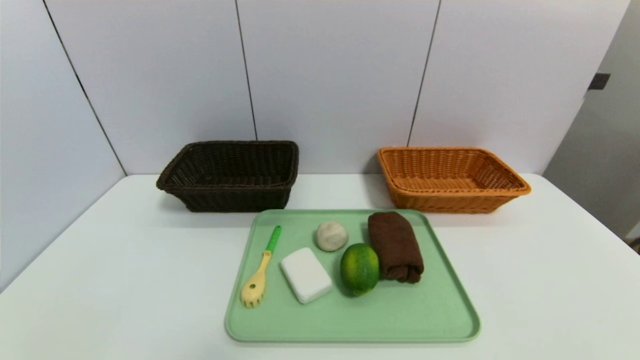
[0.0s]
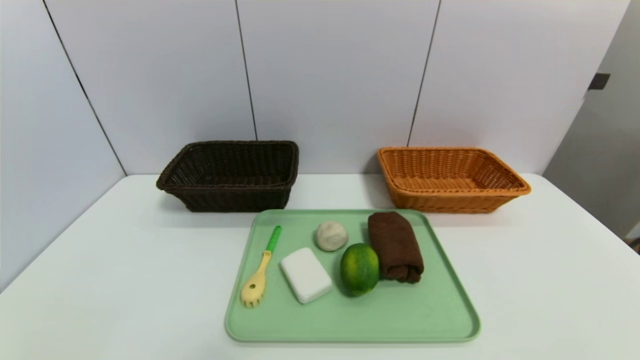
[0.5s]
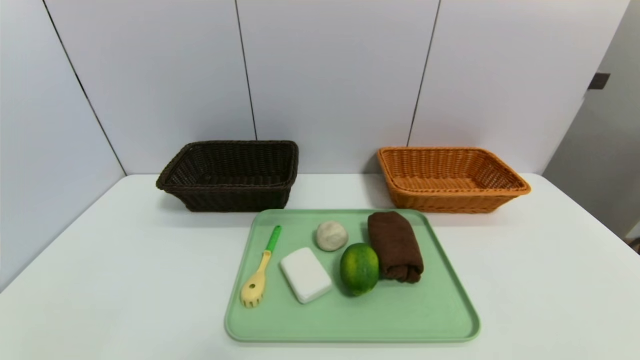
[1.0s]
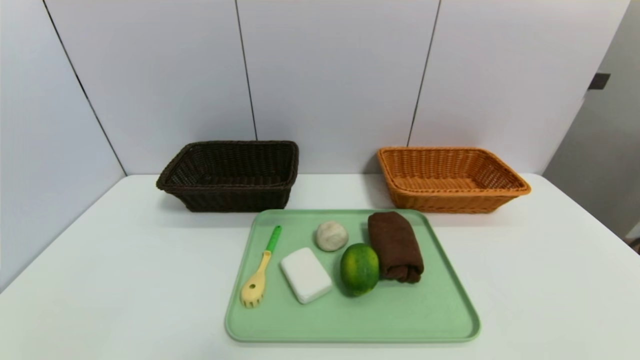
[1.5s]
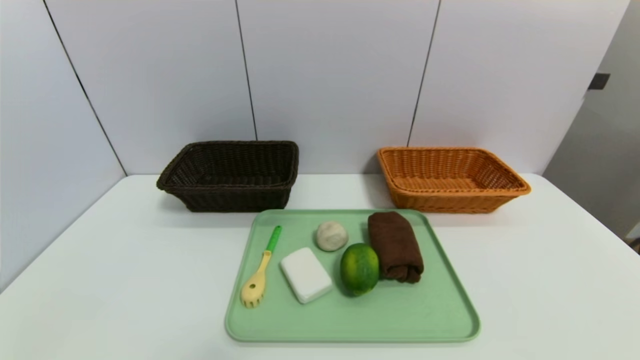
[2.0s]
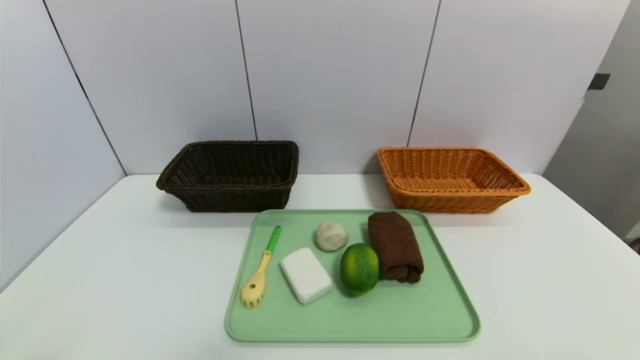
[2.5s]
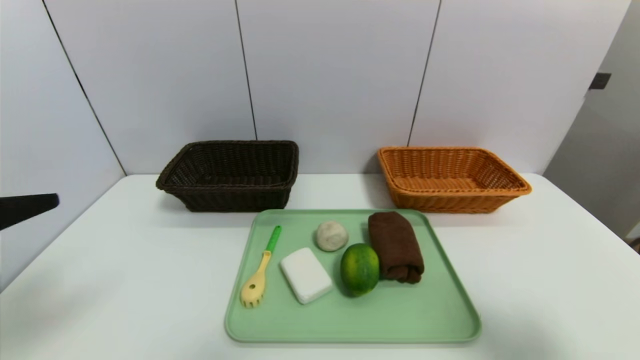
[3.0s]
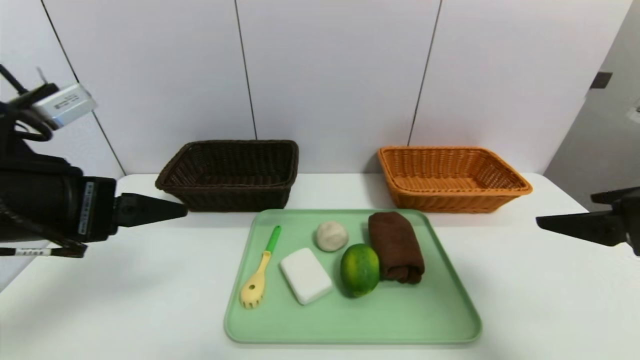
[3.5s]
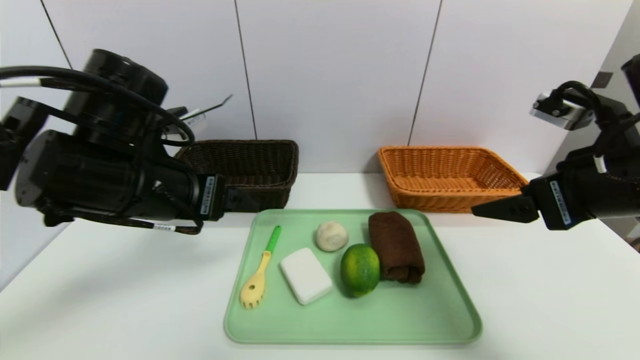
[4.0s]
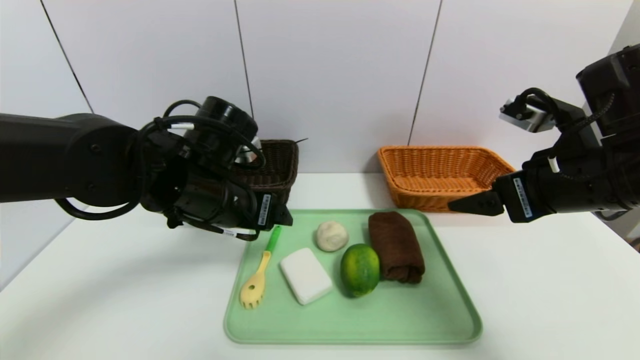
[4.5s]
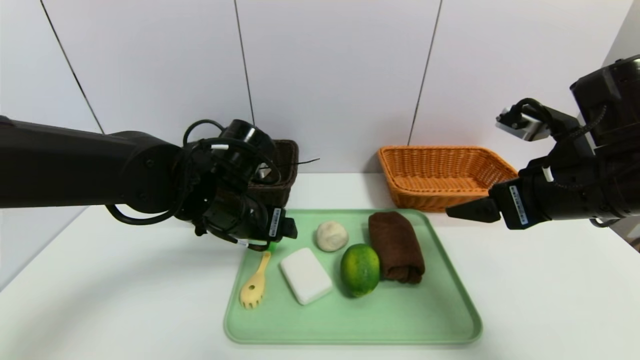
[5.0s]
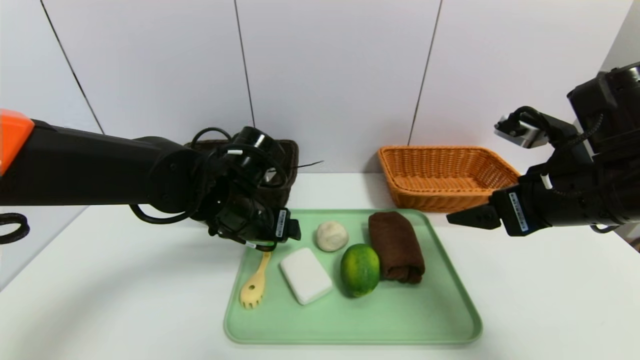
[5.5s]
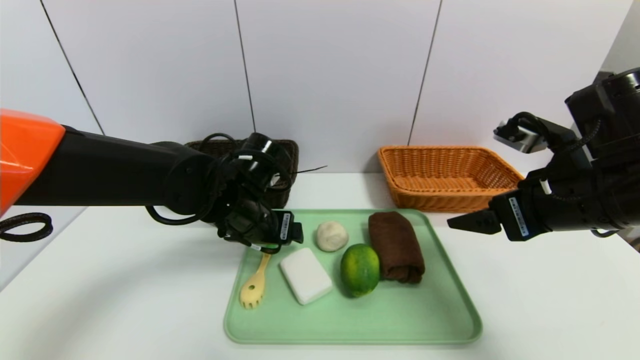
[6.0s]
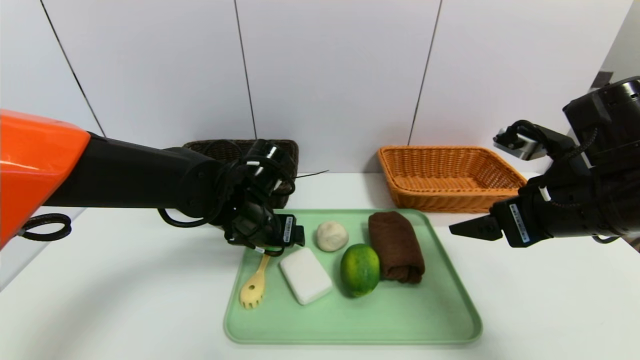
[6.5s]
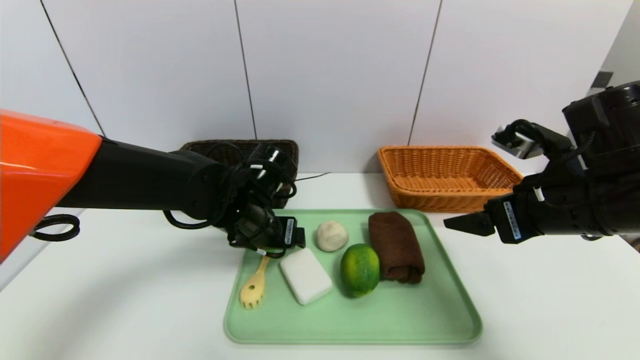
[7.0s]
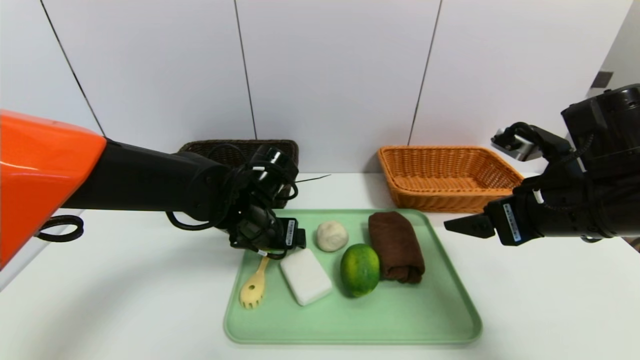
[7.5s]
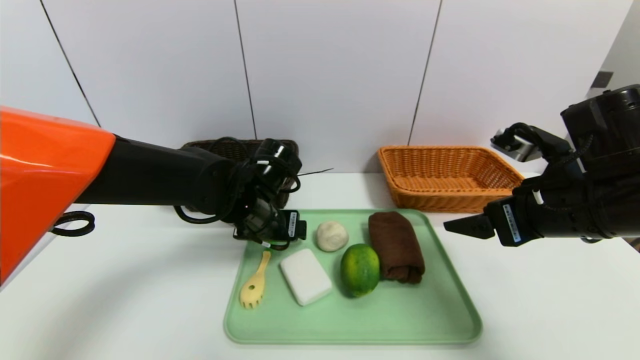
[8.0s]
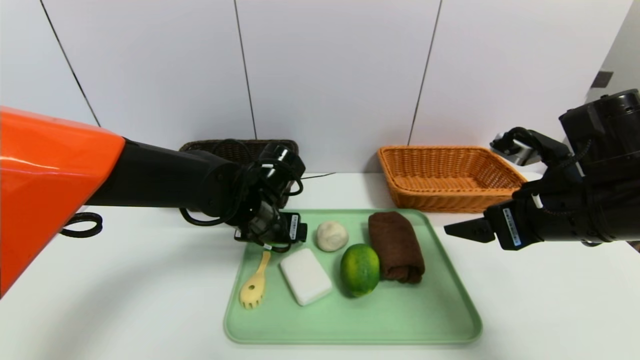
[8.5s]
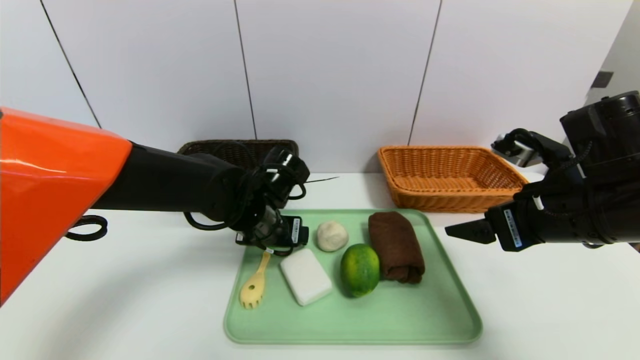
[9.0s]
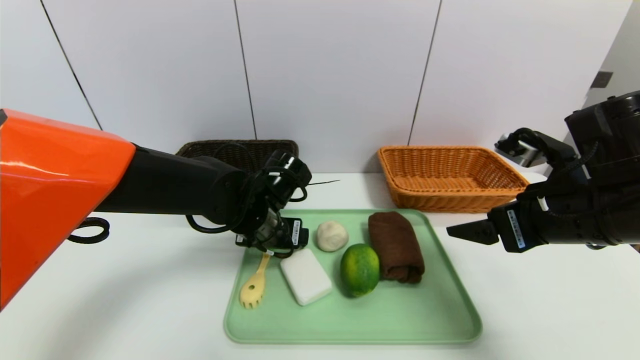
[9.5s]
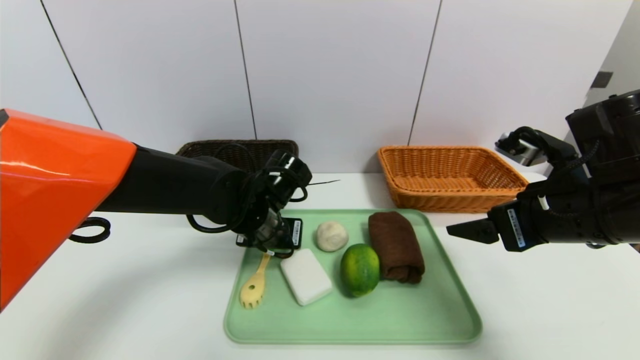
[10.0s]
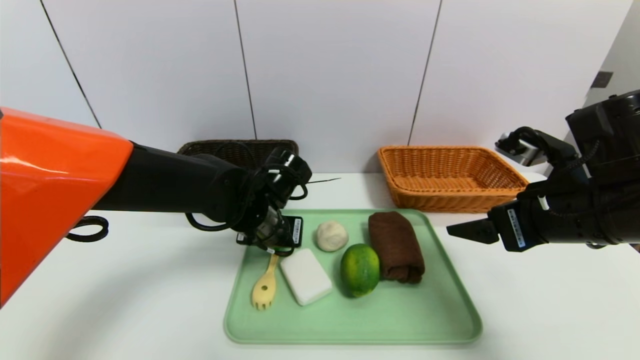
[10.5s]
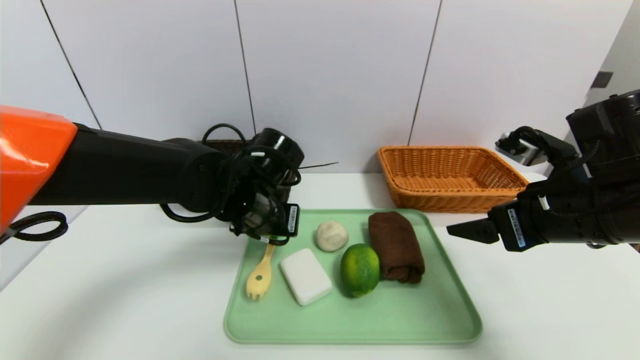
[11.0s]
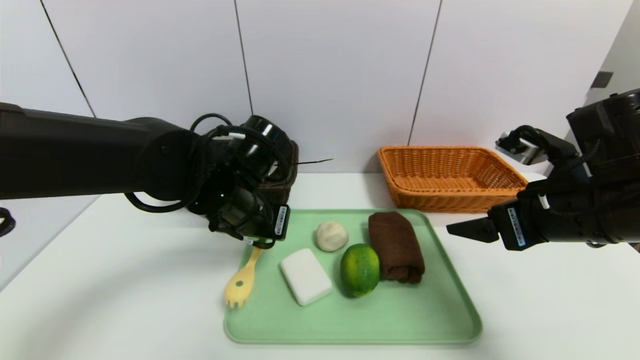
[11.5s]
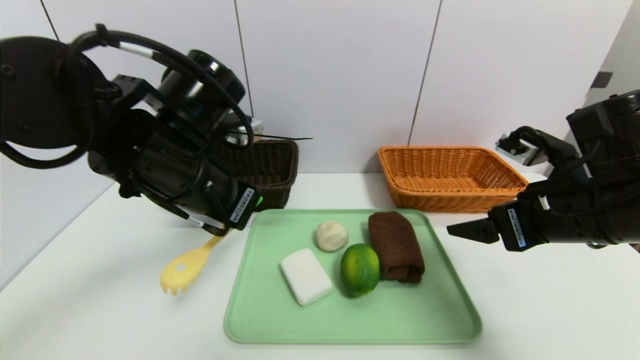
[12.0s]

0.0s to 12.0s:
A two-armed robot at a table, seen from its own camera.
Task of the whole recording: place the food in the right basket with the right gripper, and place the non food items in the left basket with the left gripper.
2.0s to 4.0s: The left gripper travels forward and to the right by approximately 30 cm. The right gripper shifts some 30 cm forward and upward.
4.0s to 6.0s: The left gripper heads downward, to the right and forward, covering approximately 15 cm.
6.0s to 8.0s: The grippers stay close to where they were, moving slightly.
8.0s to 10.0s: The left gripper closes up.
10.0s to 12.0s: The left gripper travels upward, backward and to the left by some 15 cm, and closes its fingers.

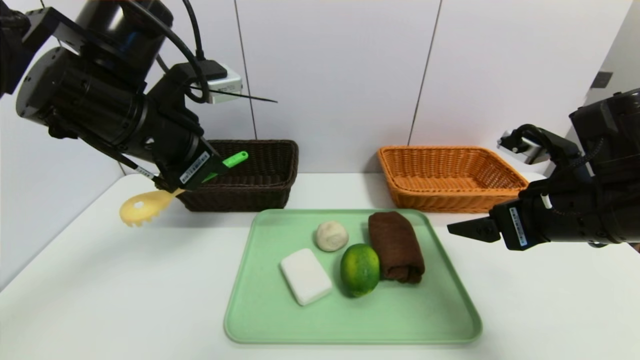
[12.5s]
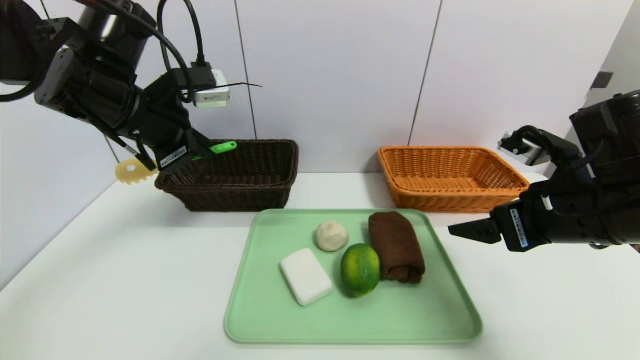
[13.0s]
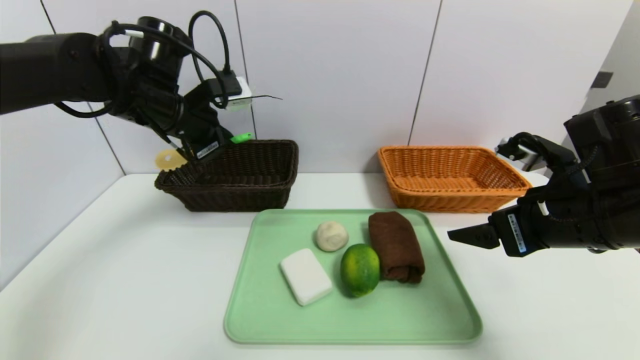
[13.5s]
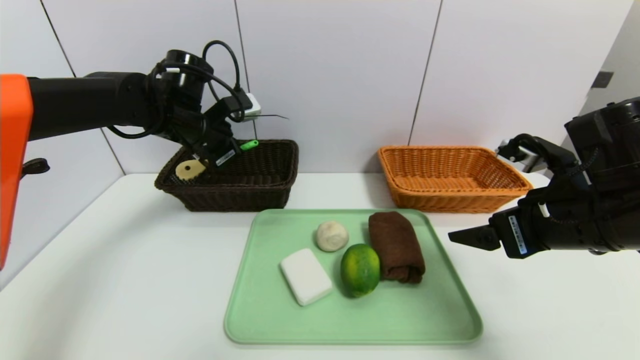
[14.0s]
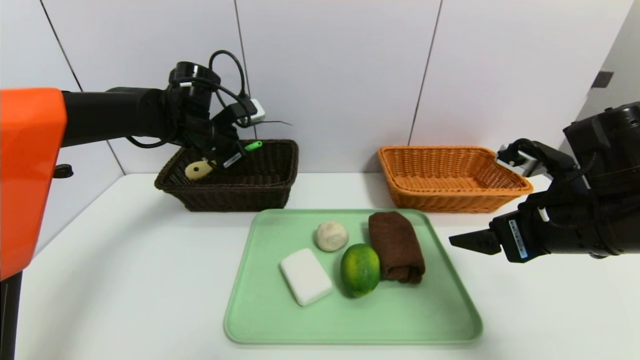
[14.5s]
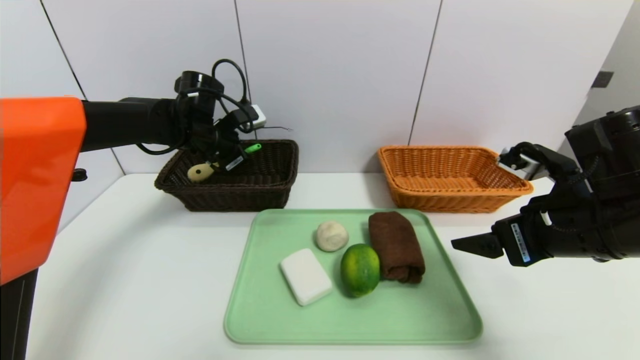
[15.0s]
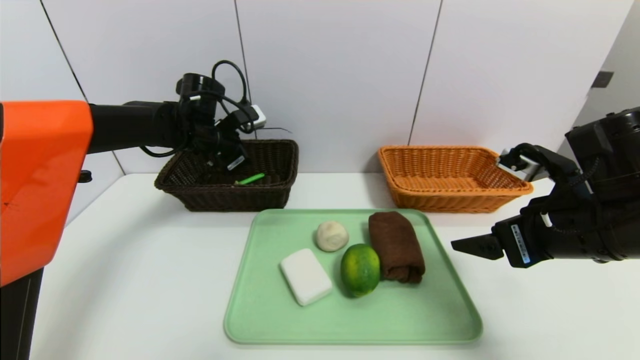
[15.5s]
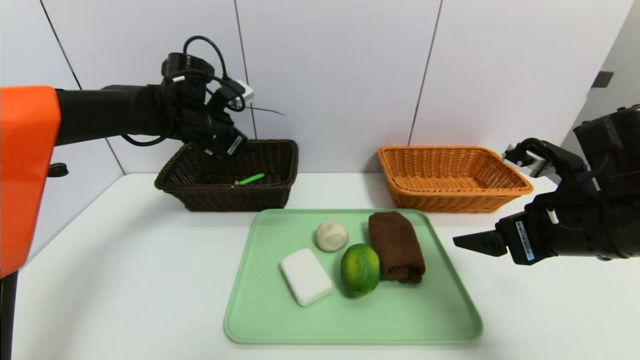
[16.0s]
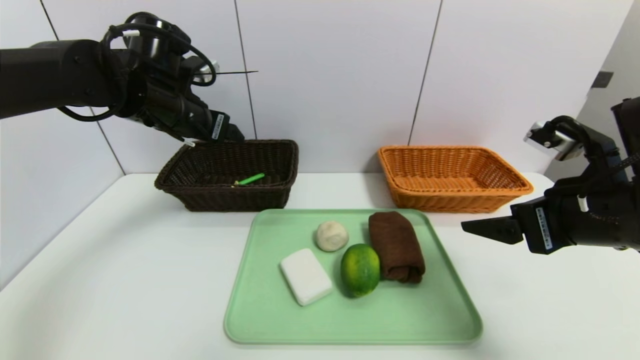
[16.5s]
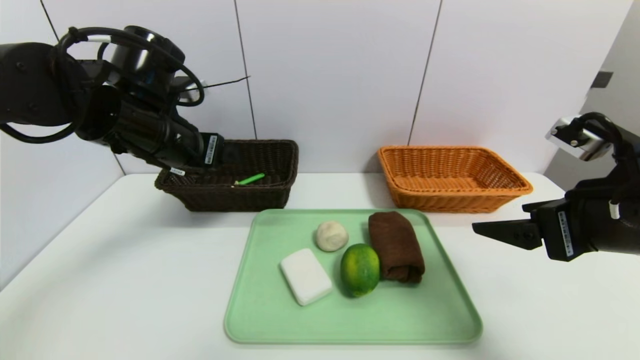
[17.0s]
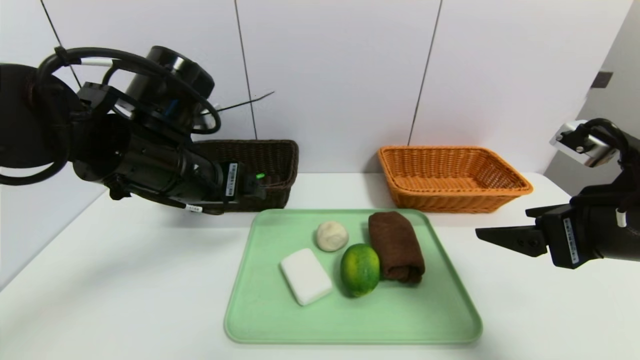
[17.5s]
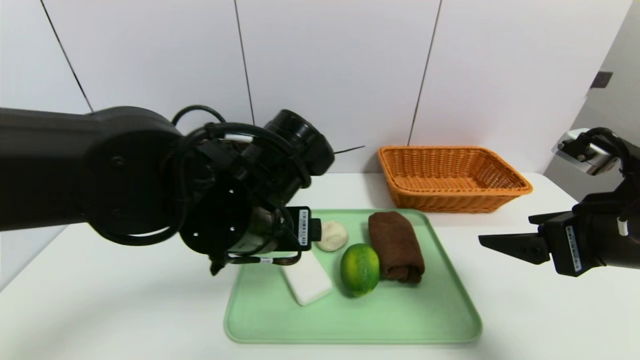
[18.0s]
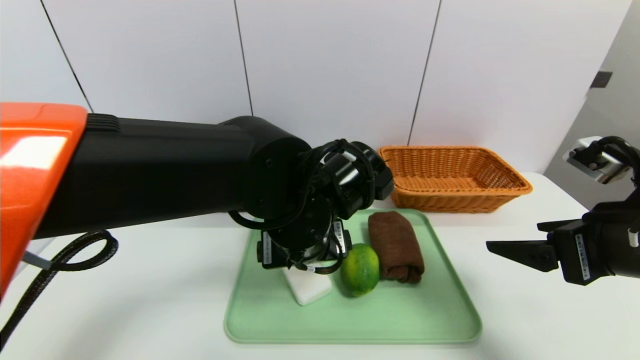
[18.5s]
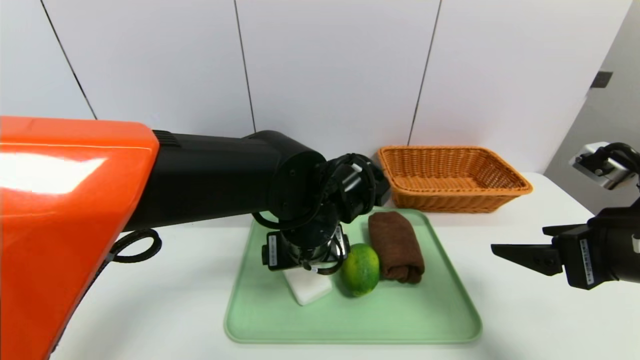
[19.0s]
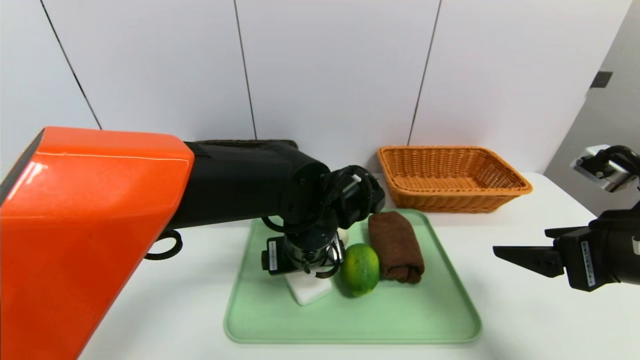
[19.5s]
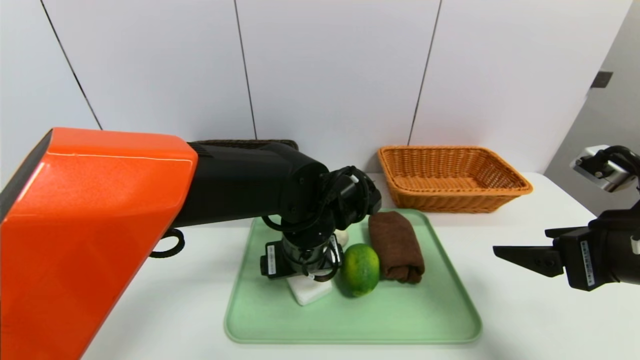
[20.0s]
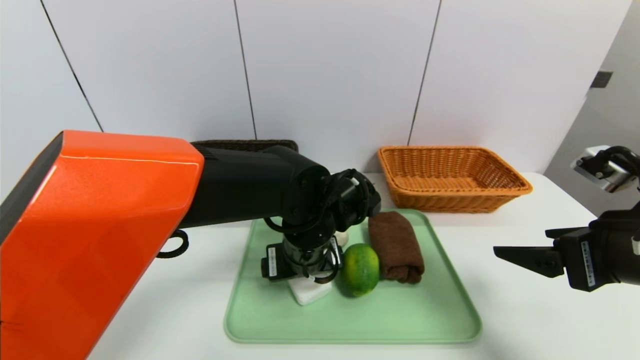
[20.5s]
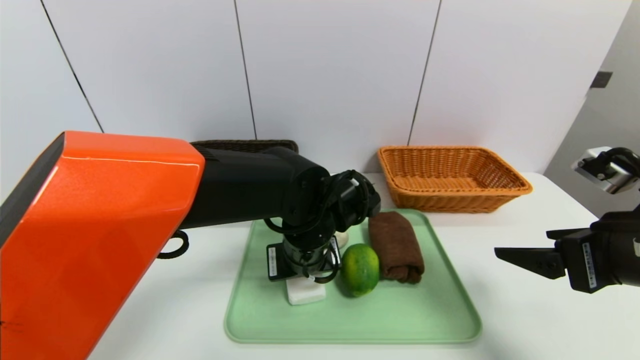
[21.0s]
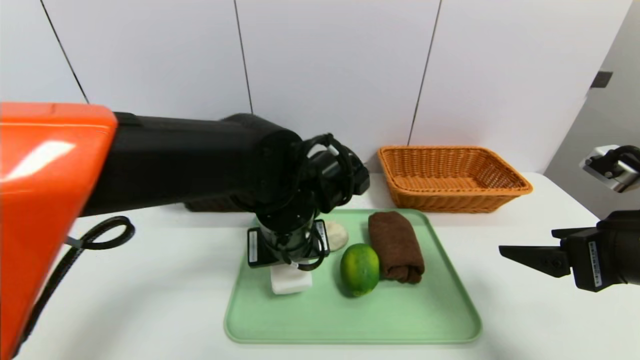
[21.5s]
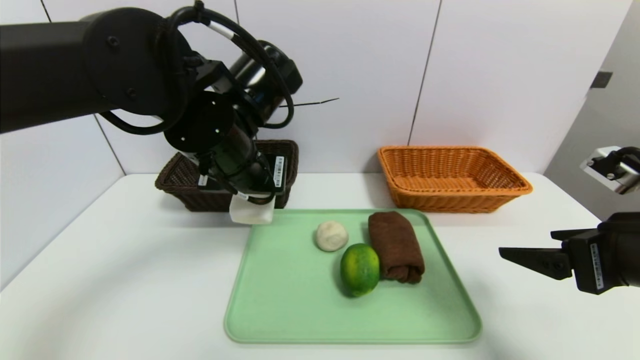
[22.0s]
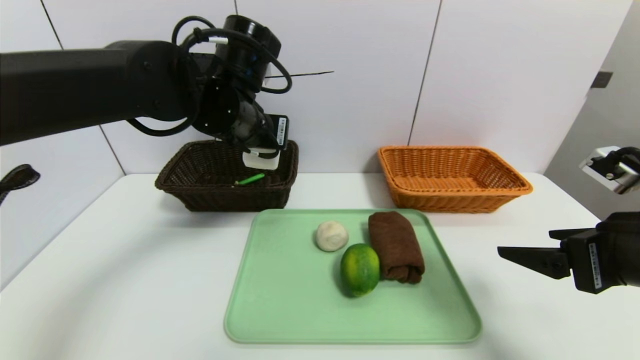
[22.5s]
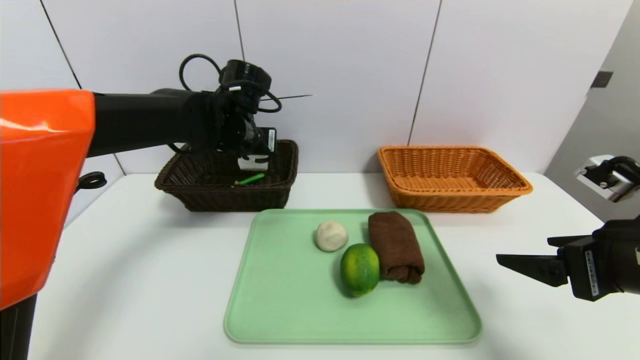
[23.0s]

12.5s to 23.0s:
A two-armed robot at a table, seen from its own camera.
Task of the whole recording: place the food in the right basket with the right gripper, and place the non food items in the left basket with the left gripper.
Step, 12.5s to 16.0s: Grasp the back scratcher and put it in the left basket.
12.5s to 14.5s: The left gripper travels forward and downward by some 20 cm.
14.5s to 16.5s: The left gripper is displaced backward and upward by some 10 cm, and opens.
16.5s to 19.0s: The left gripper is displaced to the right, backward and downward by about 25 cm.
19.0s to 21.0s: The left gripper closes.
21.0s to 23.0s: The left gripper heads forward, to the left and upward, covering some 20 cm.
